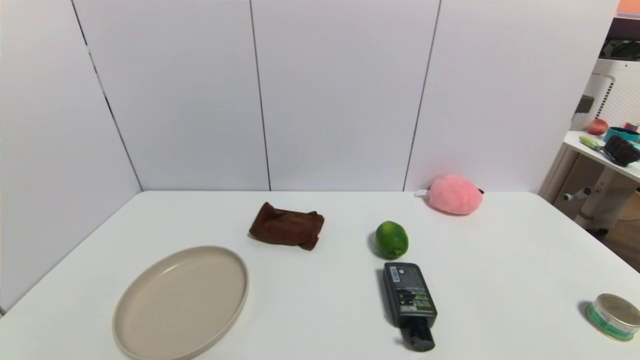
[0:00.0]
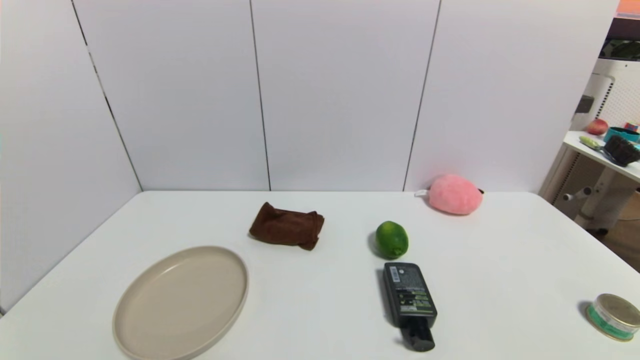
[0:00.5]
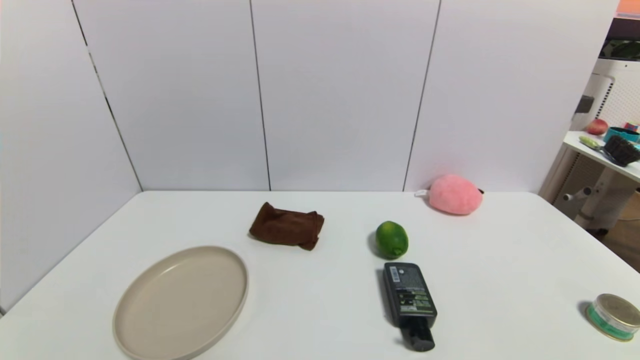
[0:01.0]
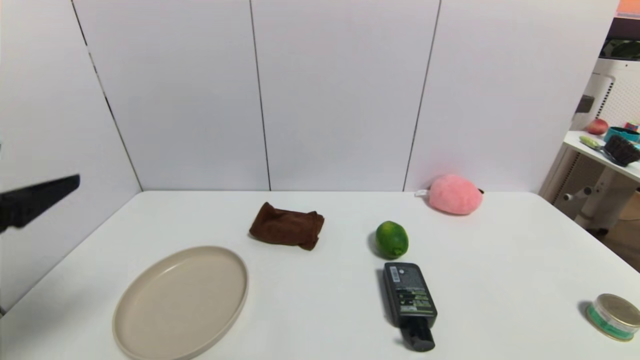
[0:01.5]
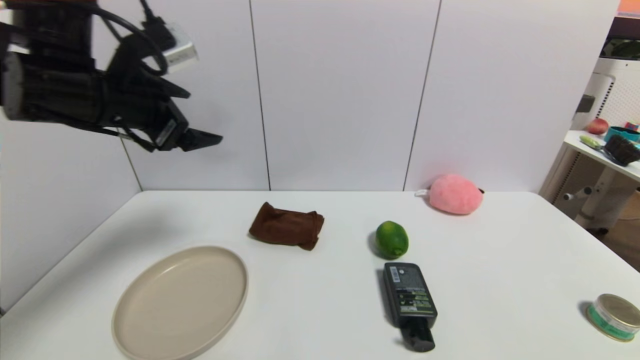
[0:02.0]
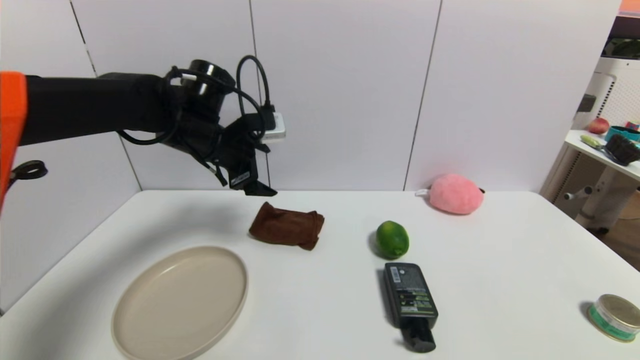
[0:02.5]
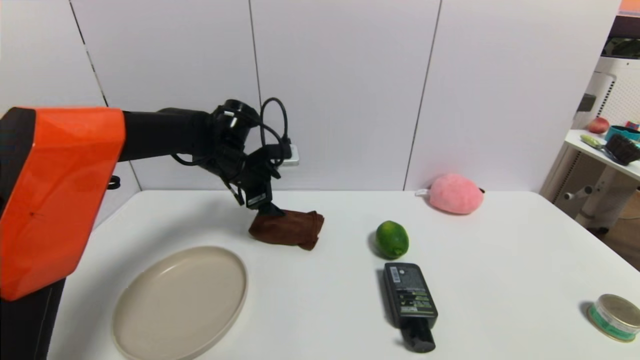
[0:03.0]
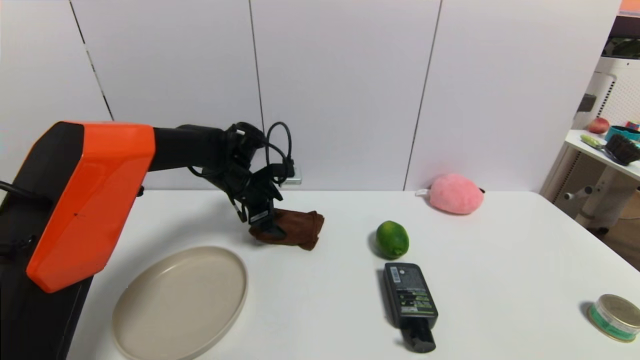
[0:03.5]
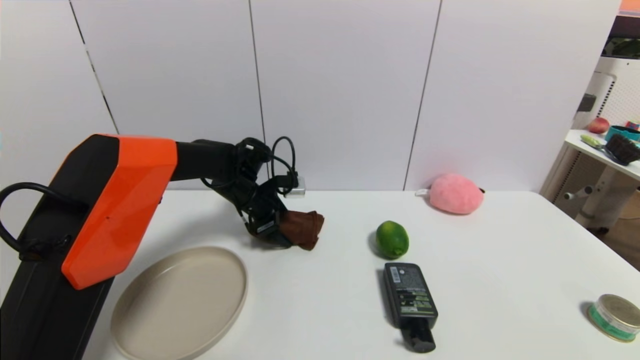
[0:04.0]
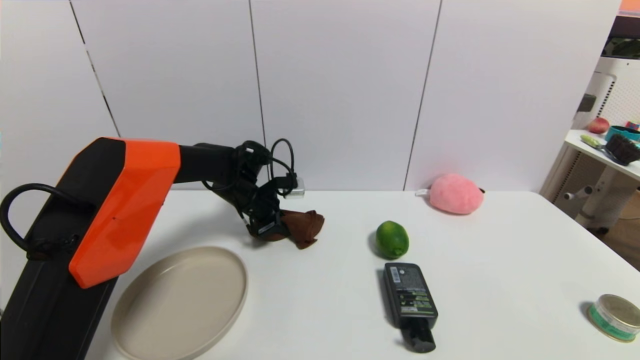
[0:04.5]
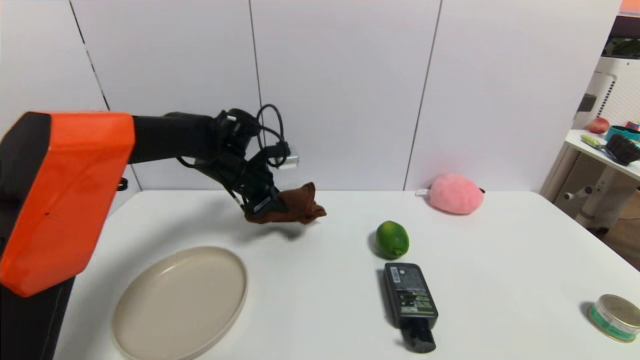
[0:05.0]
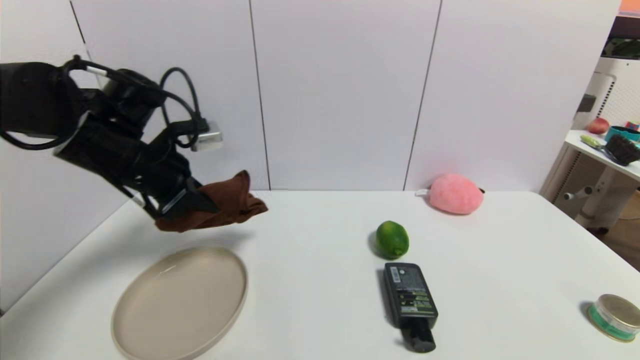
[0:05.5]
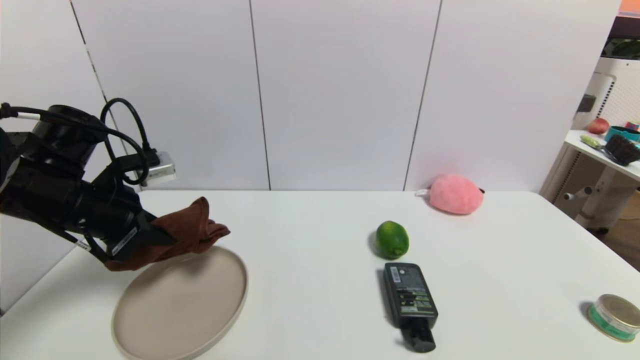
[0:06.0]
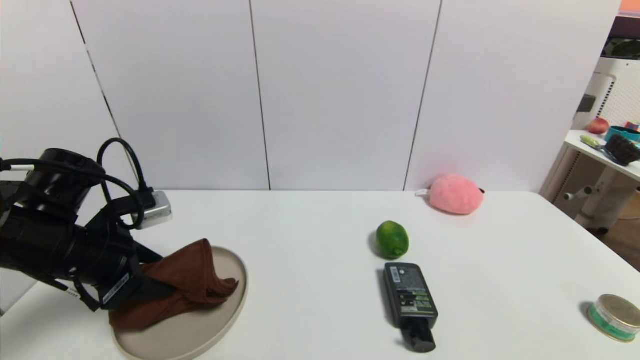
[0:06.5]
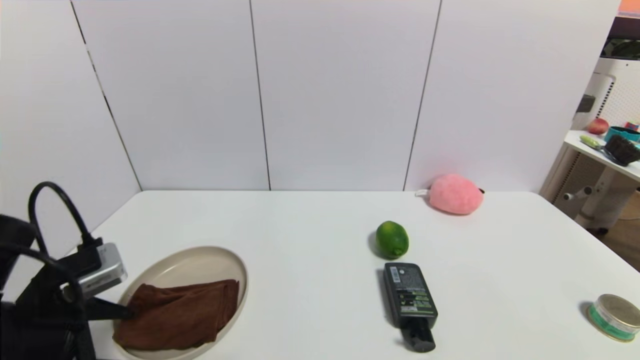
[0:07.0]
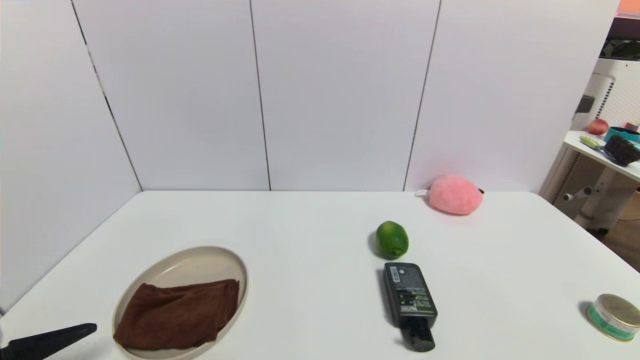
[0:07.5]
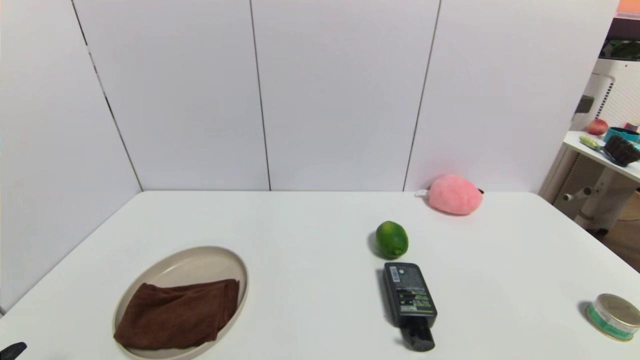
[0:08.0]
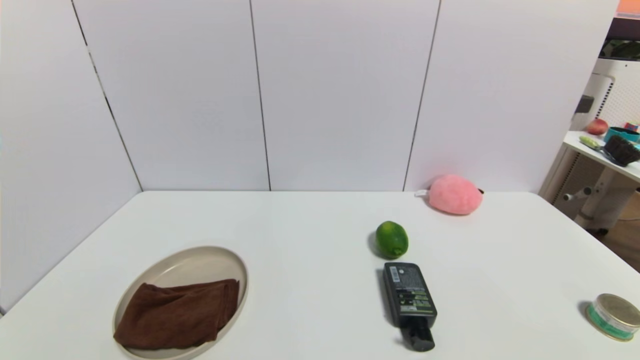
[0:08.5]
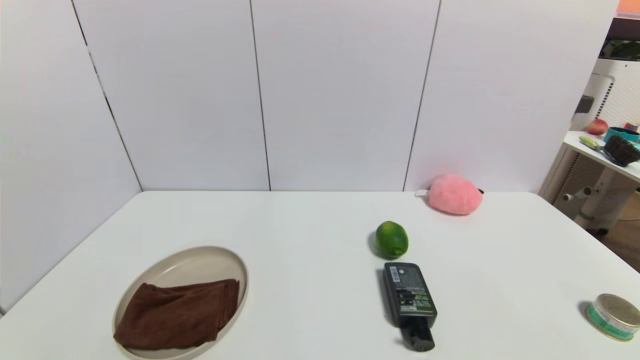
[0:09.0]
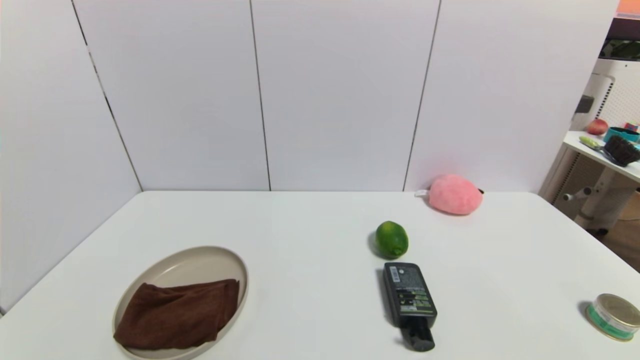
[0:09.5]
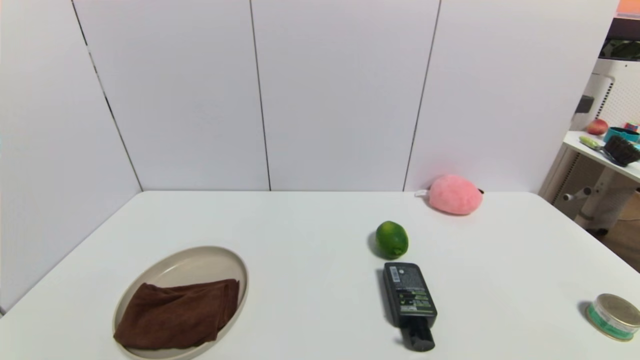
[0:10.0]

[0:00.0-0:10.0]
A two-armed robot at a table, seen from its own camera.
Task of the whole recording: use a gripper to pick the target object and place on the brown plate.
Step, 0:00.0 to 0:04.5: Grasp the brown towel with the left gripper.
Step, 0:05.0 to 0:07.0: Place the brown towel on the brown plate with the left gripper.
0:00.0 to 0:02.0: The left gripper is displaced forward and upward by approximately 40 cm.
0:02.0 to 0:04.0: The left gripper heads downward, forward and to the right, covering roughly 25 cm.
0:04.0 to 0:06.0: The left gripper heads backward, to the left and upward, covering approximately 25 cm, and closes up.
0:06.0 to 0:08.0: The left gripper is displaced backward by roughly 25 cm, and opens its fingers.
